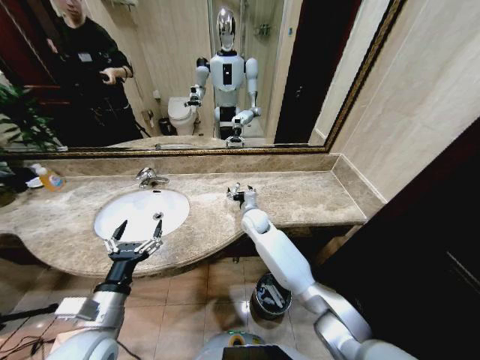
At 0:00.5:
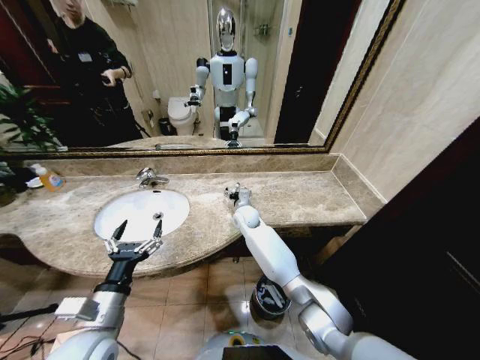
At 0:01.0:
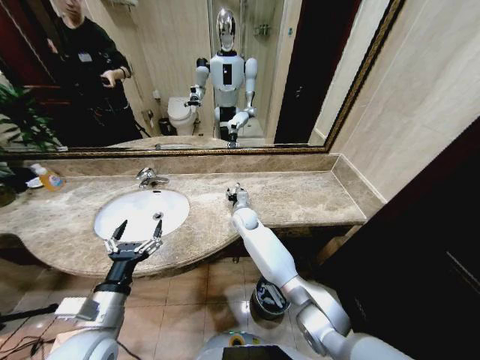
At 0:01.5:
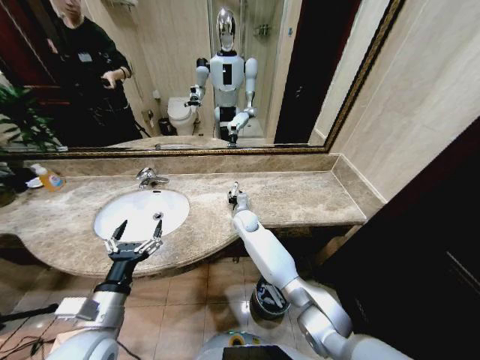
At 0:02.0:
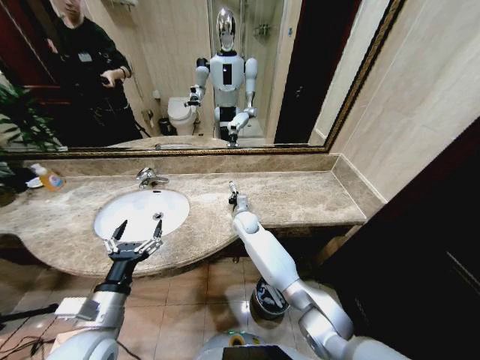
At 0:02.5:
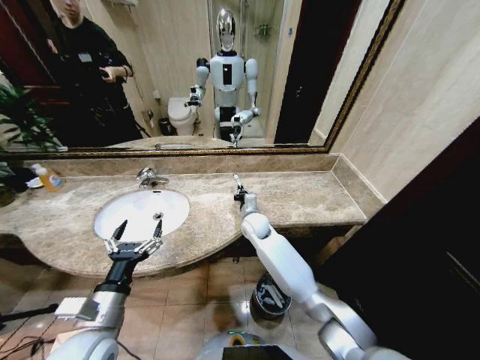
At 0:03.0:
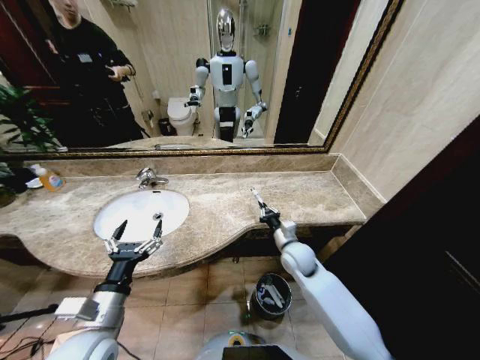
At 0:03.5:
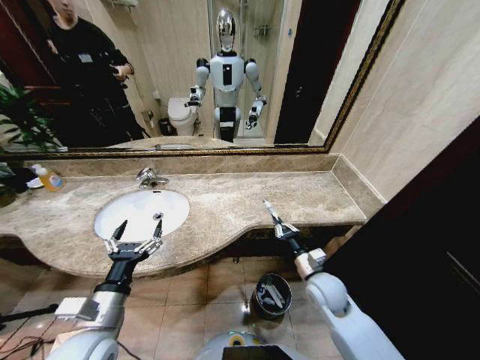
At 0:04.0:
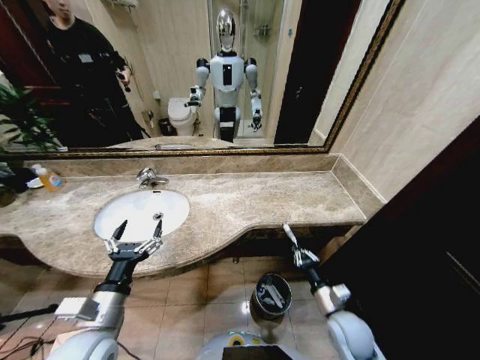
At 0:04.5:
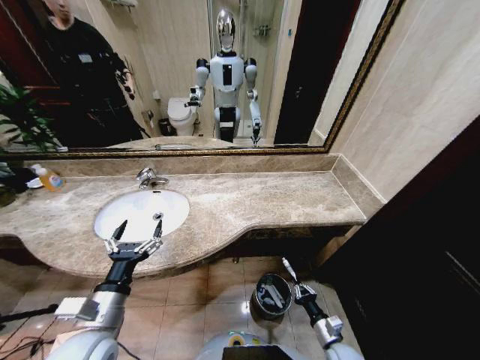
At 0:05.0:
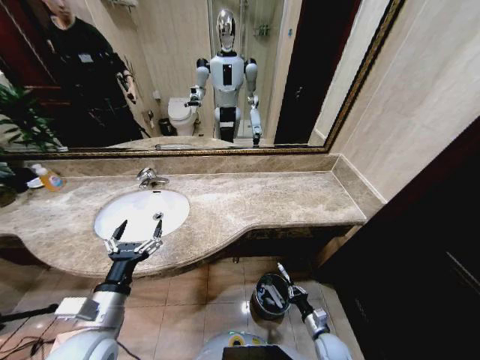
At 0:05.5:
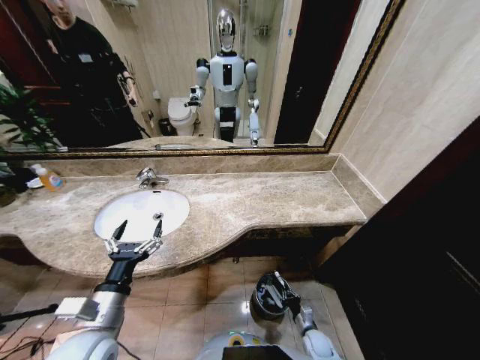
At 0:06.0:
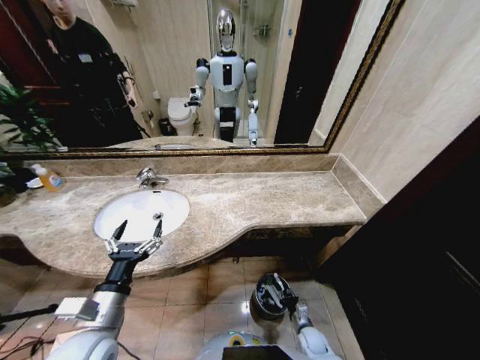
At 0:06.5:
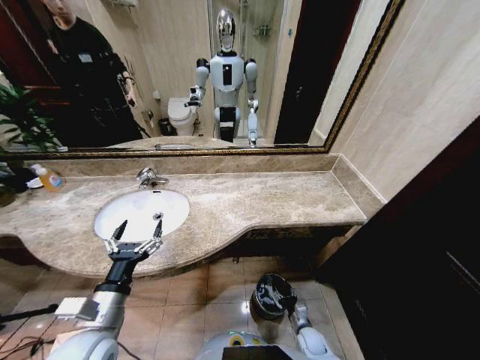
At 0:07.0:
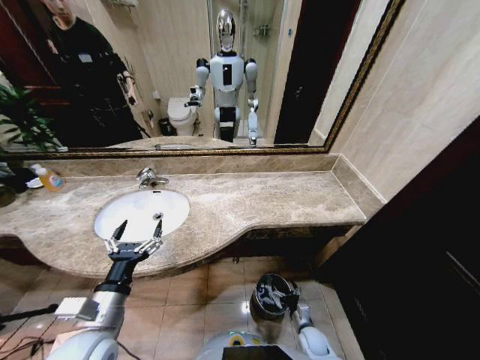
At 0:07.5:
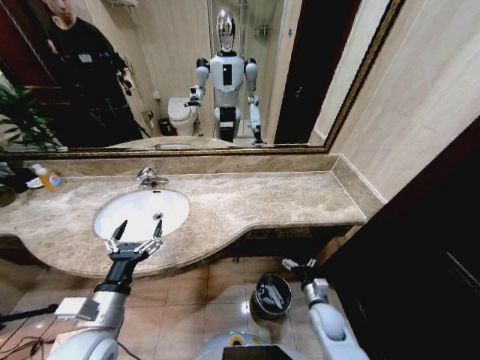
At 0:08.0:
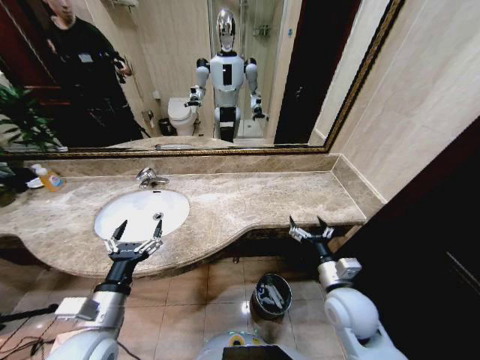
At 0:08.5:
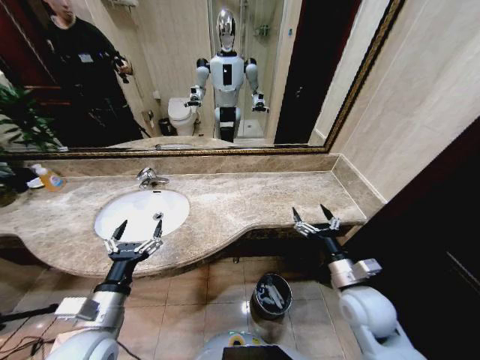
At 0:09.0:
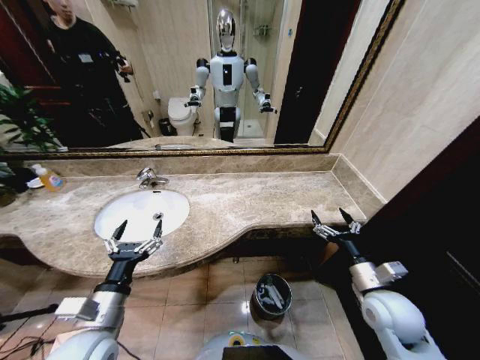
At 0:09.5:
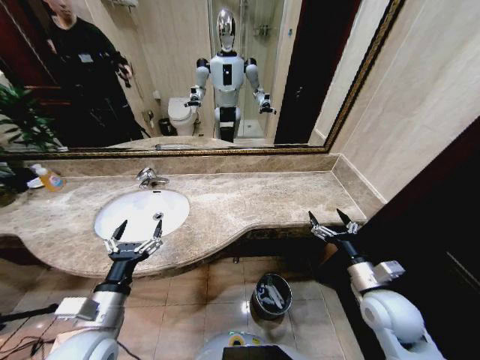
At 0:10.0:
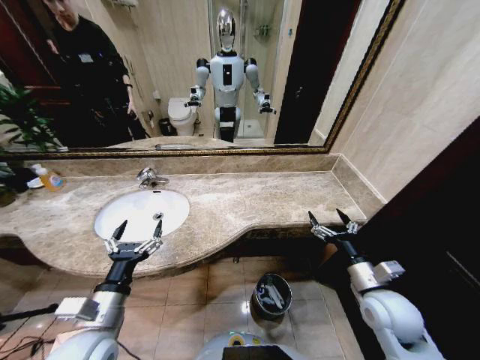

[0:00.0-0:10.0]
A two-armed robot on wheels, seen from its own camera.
Task of the whole recording: Pick up the trash from the sink and place it in the trash bin.
0:00.0 to 0:02.0: The right gripper closes.
0:02.0 to 0:04.0: The right gripper heads backward and to the right, covering approximately 40 cm.
0:04.0 to 0:06.0: The right gripper shifts about 25 cm downward.
0:06.0 to 0:08.0: The right gripper heads upward, covering some 35 cm, and opens its fingers.
0:08.0 to 0:10.0: The right gripper shifts some 10 cm to the right.
